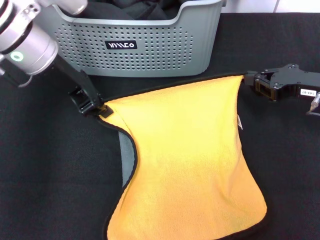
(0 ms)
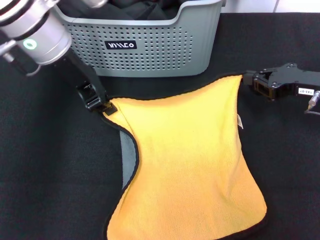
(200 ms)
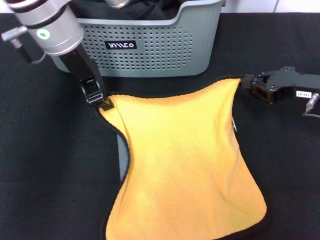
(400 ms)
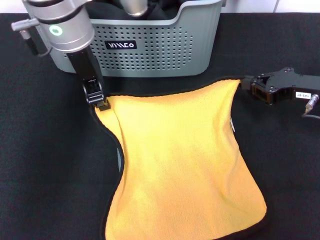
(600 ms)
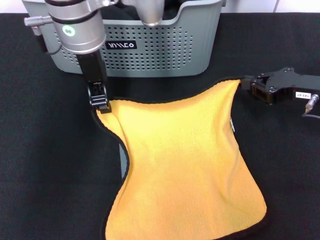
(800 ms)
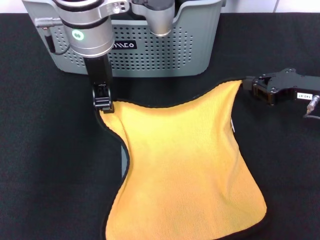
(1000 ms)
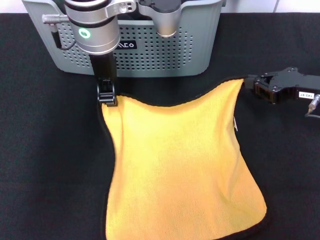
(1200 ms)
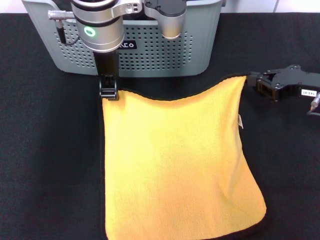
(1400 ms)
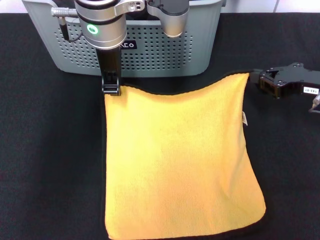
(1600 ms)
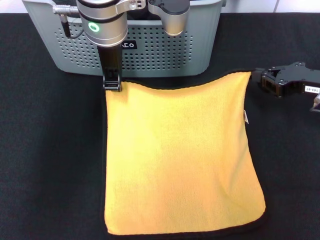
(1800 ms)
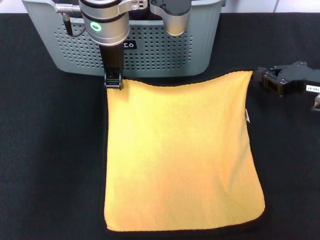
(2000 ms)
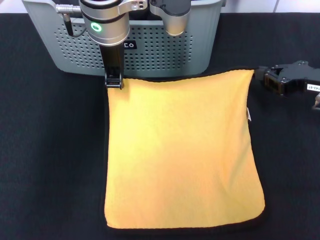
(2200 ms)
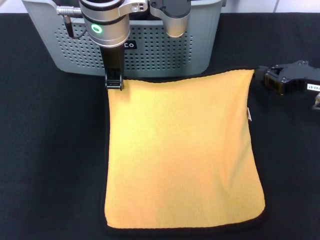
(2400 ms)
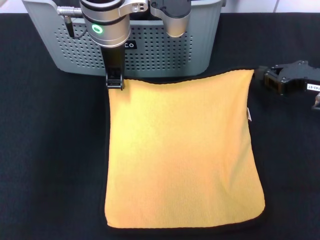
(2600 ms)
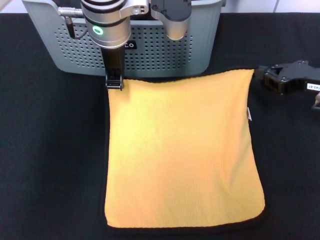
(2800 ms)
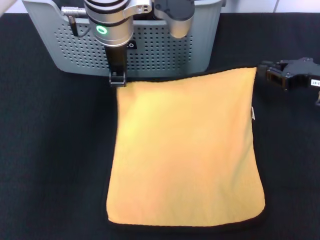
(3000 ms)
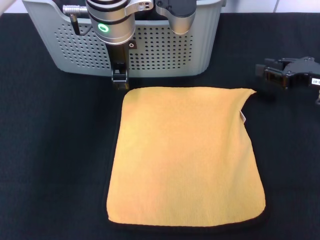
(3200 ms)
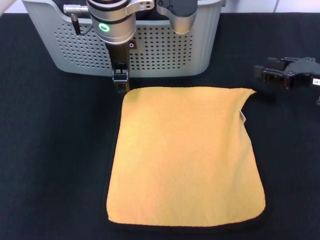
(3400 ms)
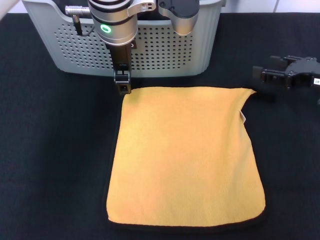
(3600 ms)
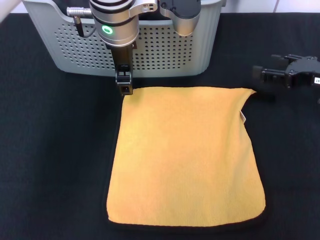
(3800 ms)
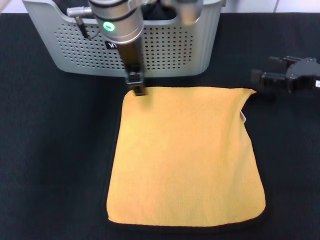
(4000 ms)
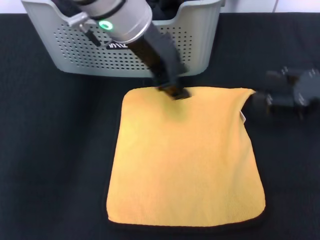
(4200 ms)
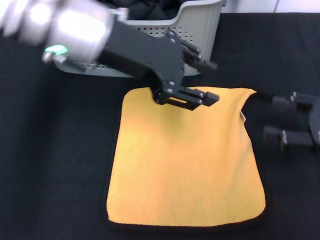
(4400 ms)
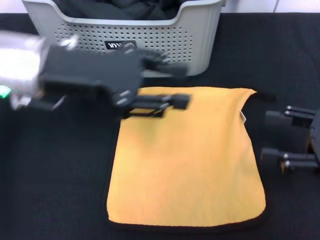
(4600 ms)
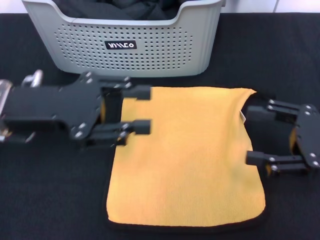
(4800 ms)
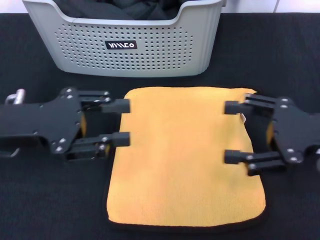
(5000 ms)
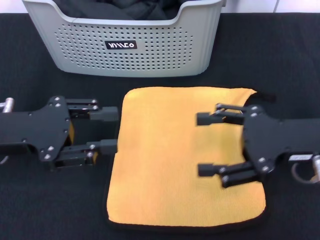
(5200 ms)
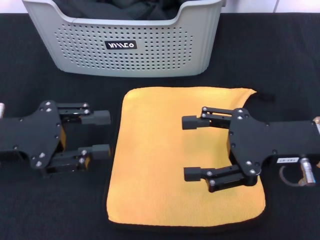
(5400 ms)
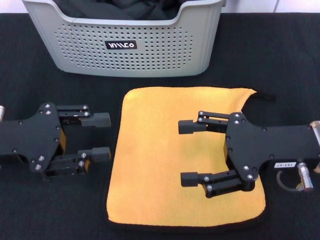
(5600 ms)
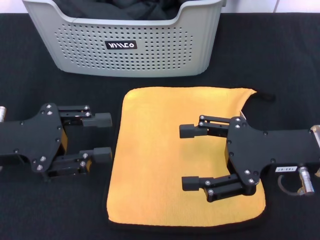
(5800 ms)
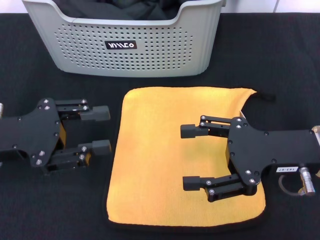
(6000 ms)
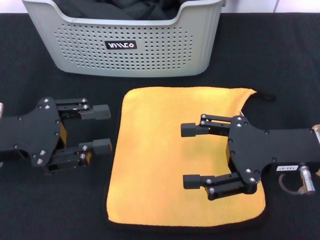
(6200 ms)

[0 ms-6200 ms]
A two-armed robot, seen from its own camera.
Task of the whole recording: pick up the towel from the storage box and lay it flat on the black tablecloth.
Step, 0 ms to 3200 ms: Spread the towel flat with the right gripper.
0 ms to 1600 ms: The left gripper moves to the right, approximately 10 cm.
3200 ms to 4600 ms: The right gripper travels backward by some 10 cm, and opens. The left gripper is displaced to the left and backward by about 15 cm, and opens.
4600 ms to 6200 ms: The right gripper shifts approximately 10 cm to the left; the left gripper heads to the left, downward and backward, covering roughly 15 cm.
